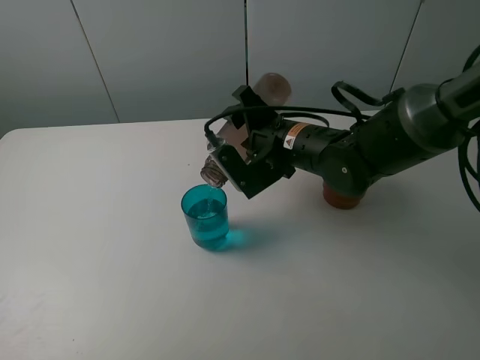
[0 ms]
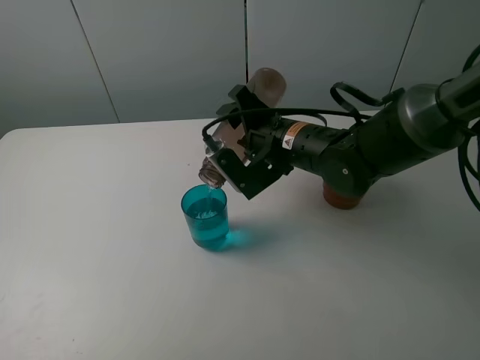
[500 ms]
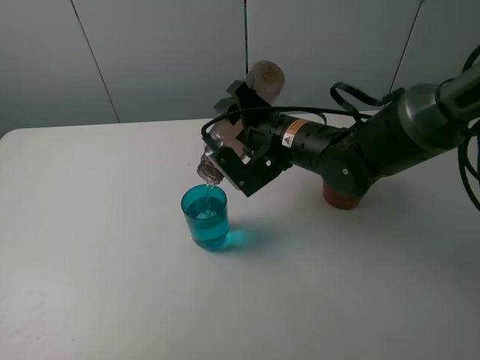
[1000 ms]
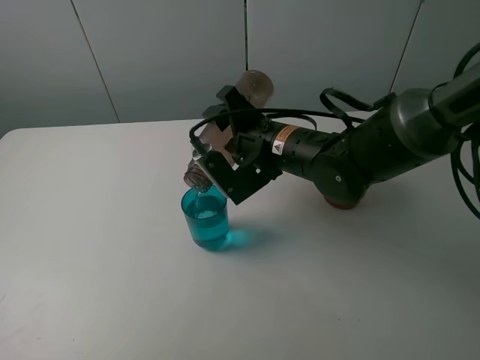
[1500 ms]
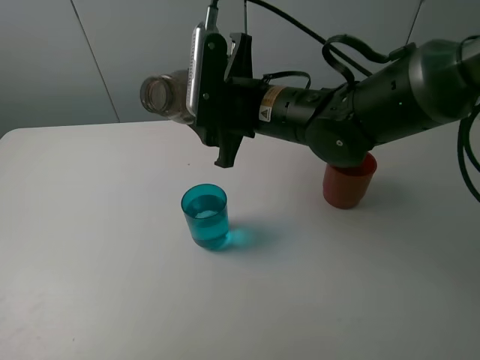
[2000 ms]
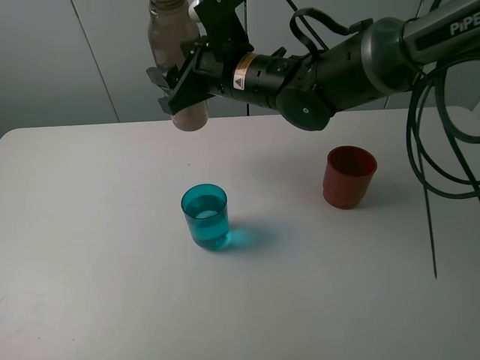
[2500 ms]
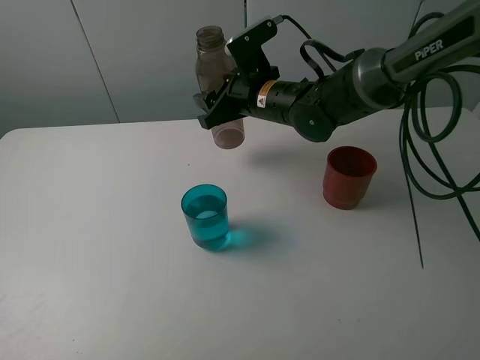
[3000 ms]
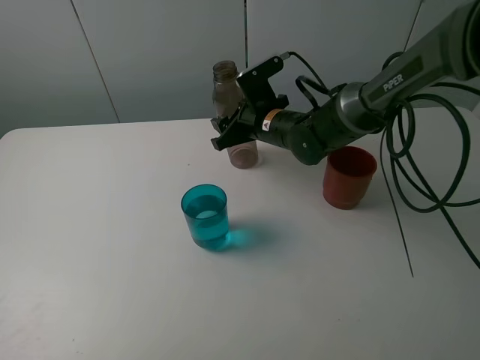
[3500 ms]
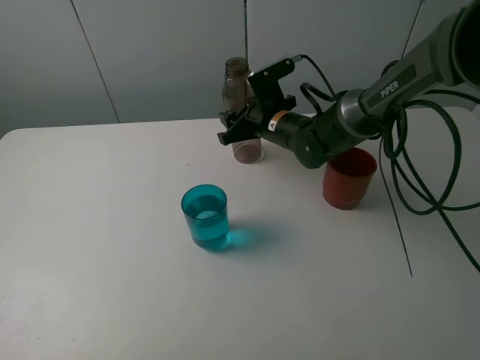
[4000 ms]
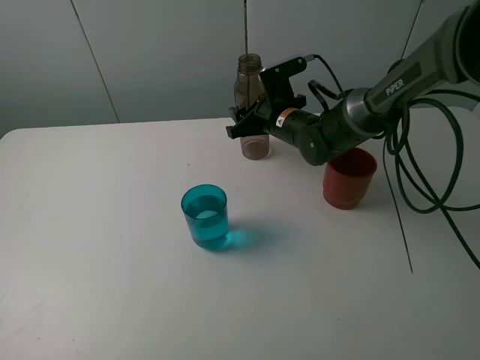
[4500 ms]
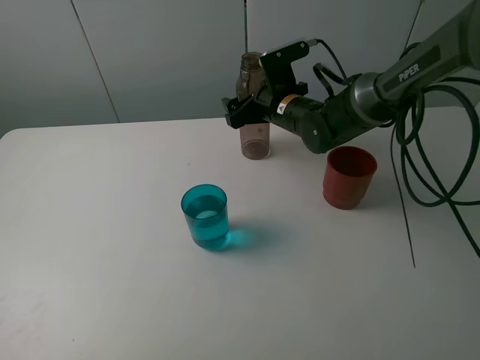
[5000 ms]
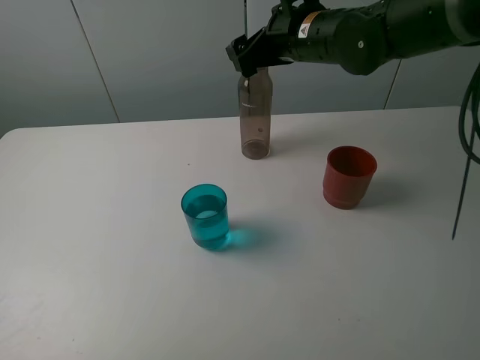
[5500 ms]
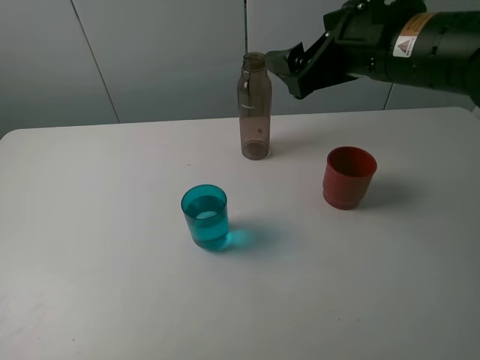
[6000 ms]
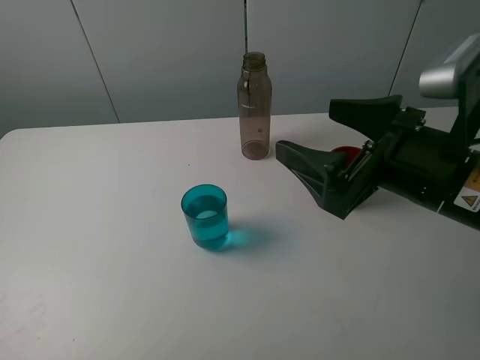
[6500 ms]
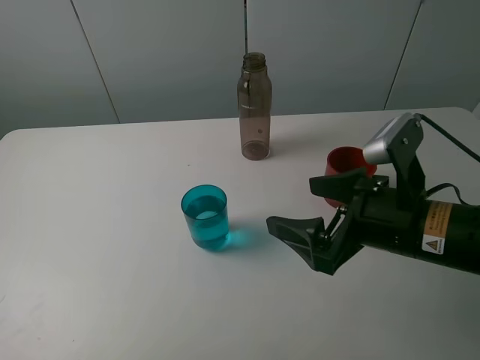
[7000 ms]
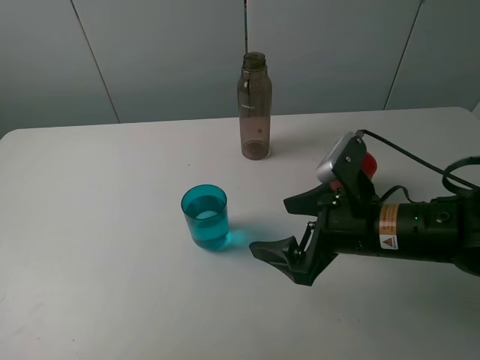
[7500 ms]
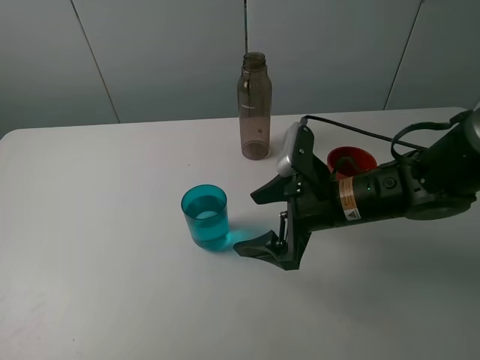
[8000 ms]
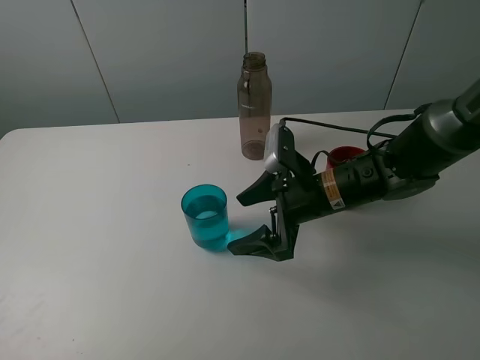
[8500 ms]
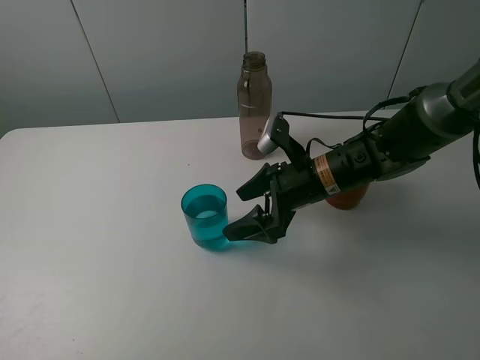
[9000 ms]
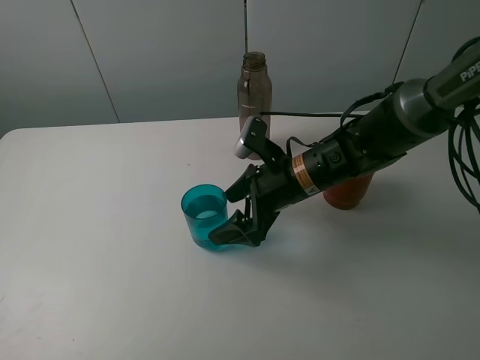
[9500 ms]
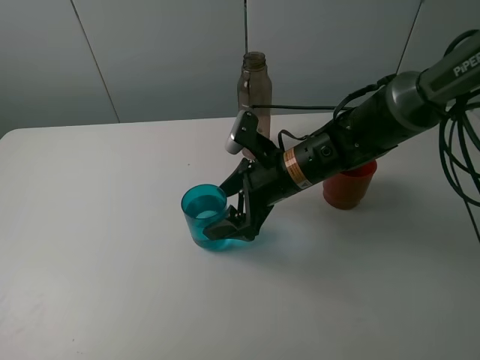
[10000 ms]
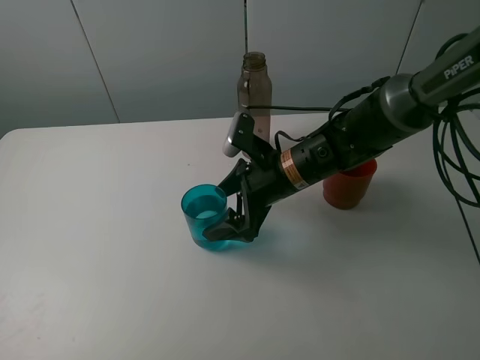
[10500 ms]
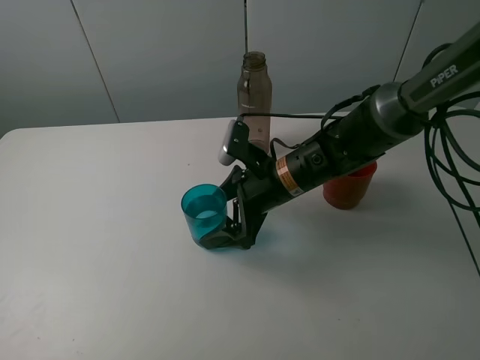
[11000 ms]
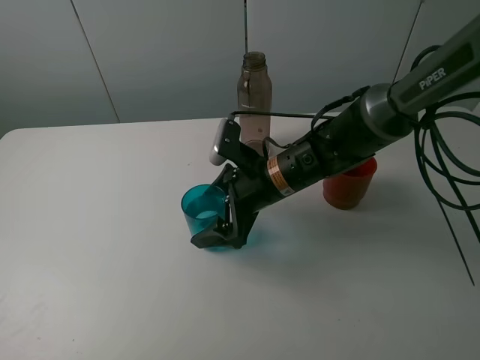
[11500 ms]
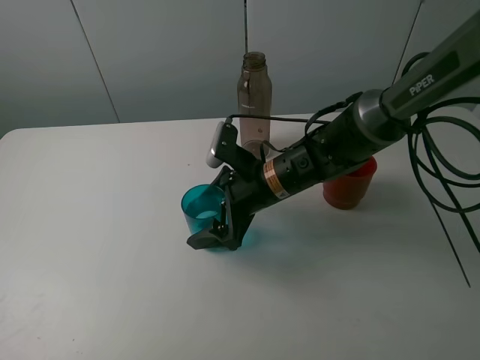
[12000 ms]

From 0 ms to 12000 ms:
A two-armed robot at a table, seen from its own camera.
Task of the whole recording: pick up the bottle and pour water into the cup, then pick up the cup containing water and pour it into another cup.
Step, from 2000 ms to 5000 ms: Place the brown bottle with the right gripper.
From 0 ms to 2000 ms: The right gripper is displaced upward by approximately 5 cm.
From 2000 ms to 4000 ms: The right gripper is displaced downward and forward by approximately 15 cm.
From 4000 ms to 6000 ms: The right gripper is displaced upward, backward and to the right by about 25 cm, and opens its fingers.
From 6000 ms to 8000 ms: The right gripper goes some 15 cm downward.
From 8000 ms to 10000 ms: The right gripper is displaced to the left and forward by roughly 5 cm.
From 10000 ms to 12000 ms: The grippers stay close to where they were, moving slightly.

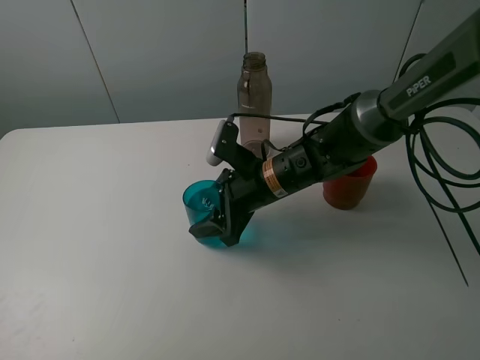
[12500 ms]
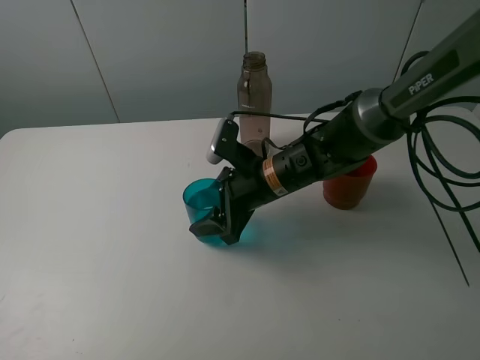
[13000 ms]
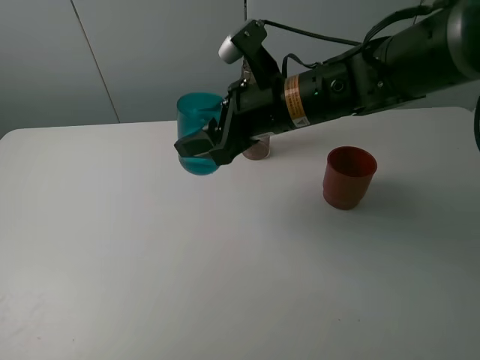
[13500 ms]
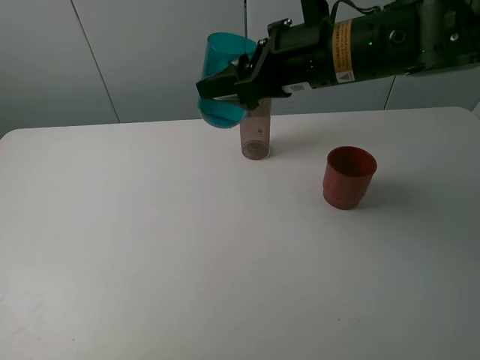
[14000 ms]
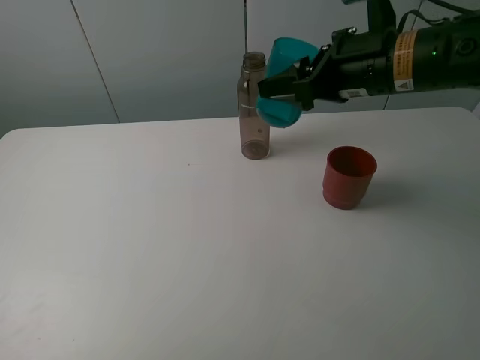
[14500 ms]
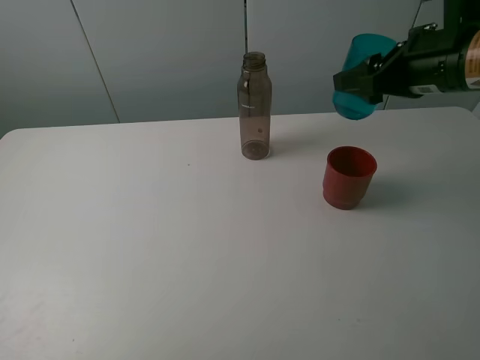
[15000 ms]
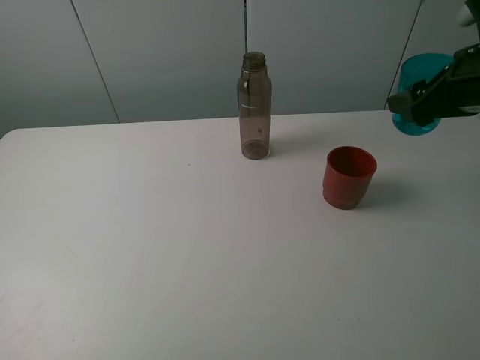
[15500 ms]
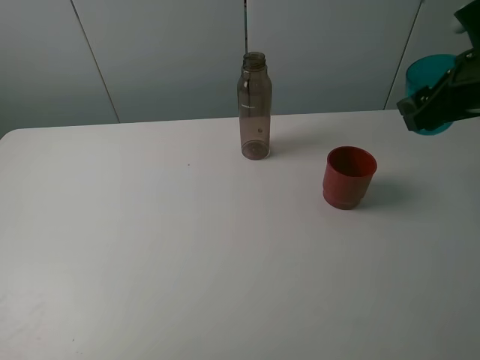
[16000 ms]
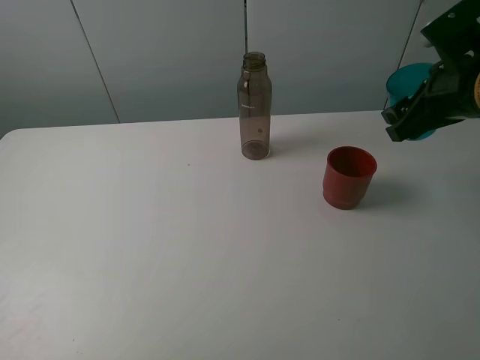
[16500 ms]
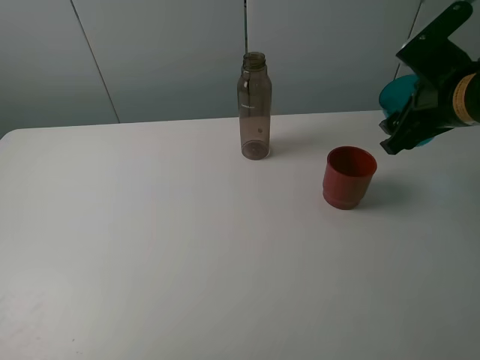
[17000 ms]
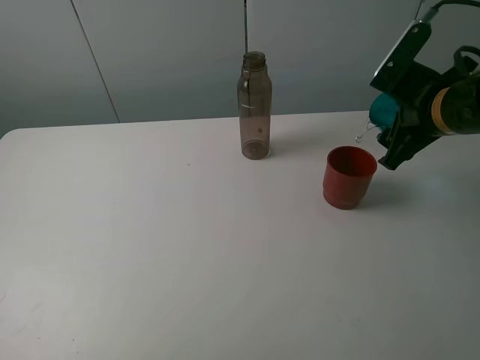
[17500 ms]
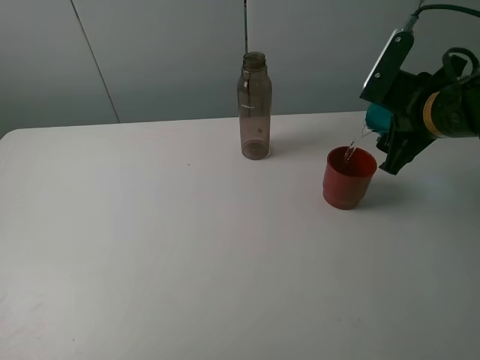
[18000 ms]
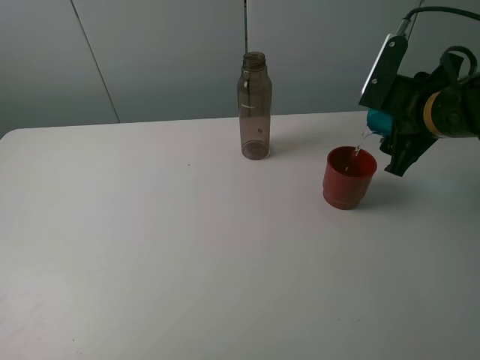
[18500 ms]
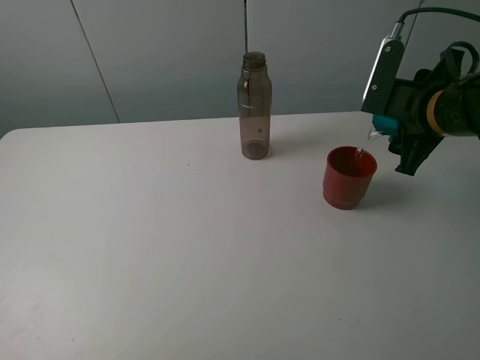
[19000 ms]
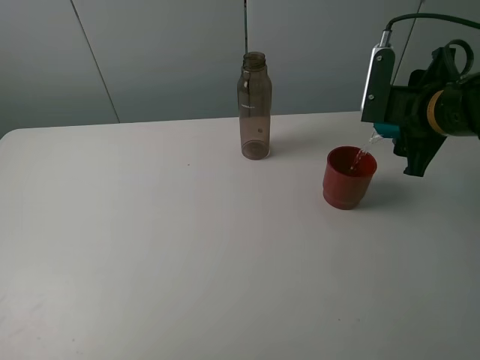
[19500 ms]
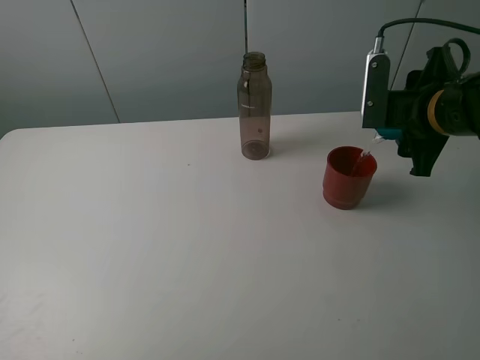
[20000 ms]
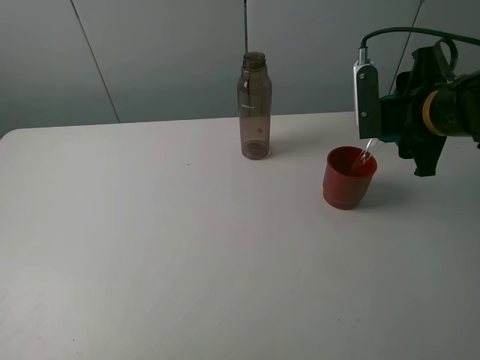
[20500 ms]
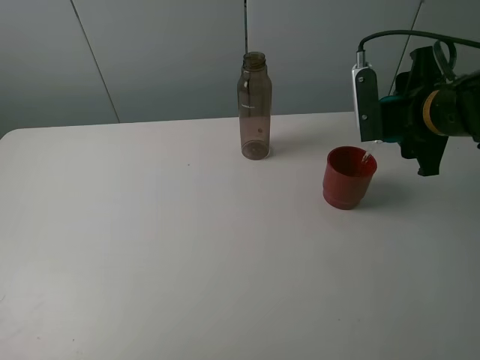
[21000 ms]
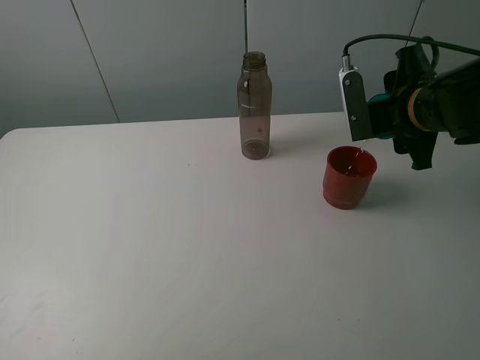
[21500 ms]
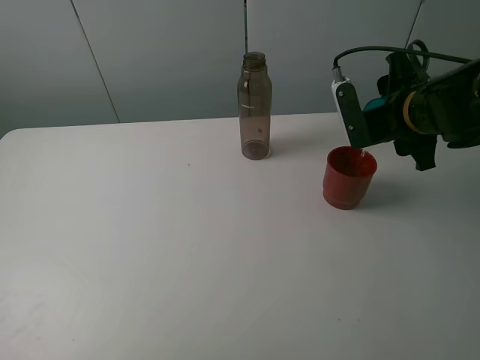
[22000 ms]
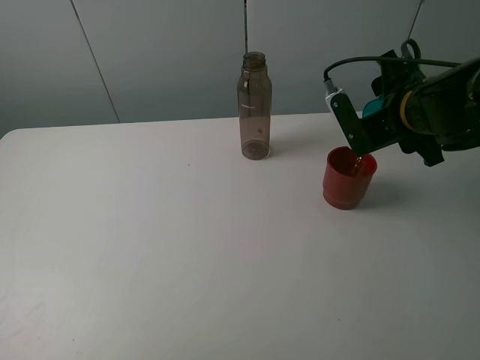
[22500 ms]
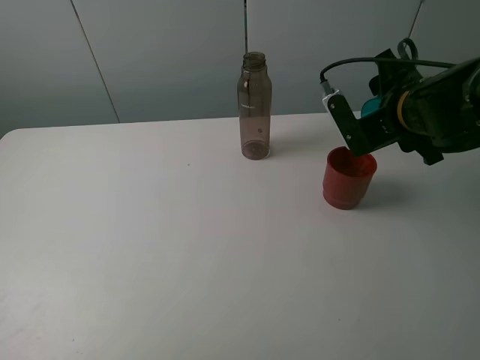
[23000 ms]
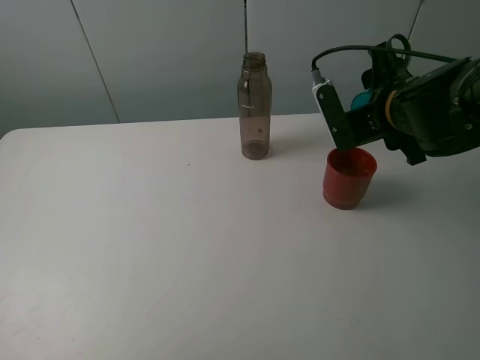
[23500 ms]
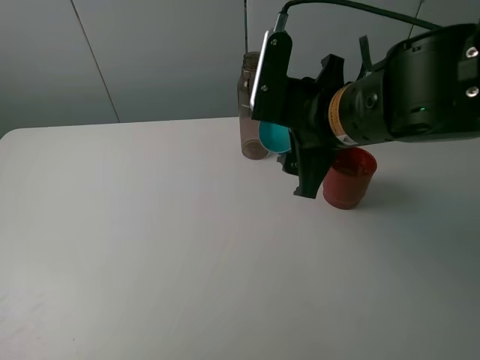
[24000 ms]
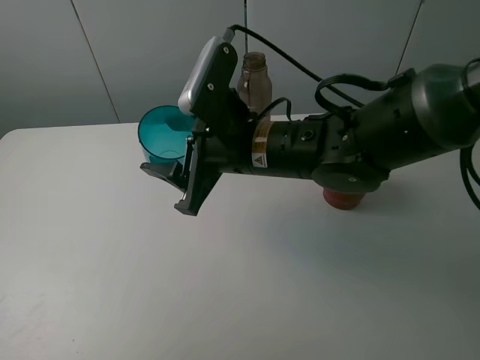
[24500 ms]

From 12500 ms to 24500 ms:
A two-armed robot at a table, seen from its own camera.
Task of the whole recording: pick up the bottle and pour water into the cup, then pick up the cup containing water and pour it into another cup.
Step, from 13000 ms to 23000 ms: Pour water from blue cup to red cup with the right gripper.
From 12500 ms to 14500 ms: The right gripper shifts approximately 20 cm upward and to the right.
From 14500 ms to 16500 ms: The right gripper heads to the right, covering roughly 10 cm.
From 22500 ms to 24500 ms: The right gripper is displaced to the left by roughly 20 cm.

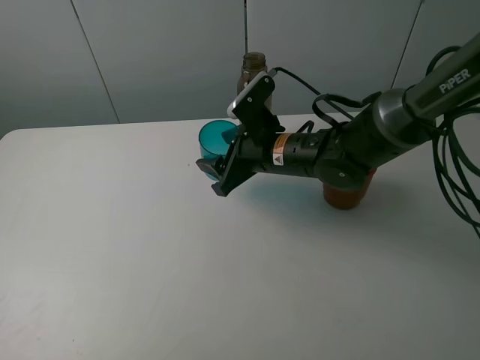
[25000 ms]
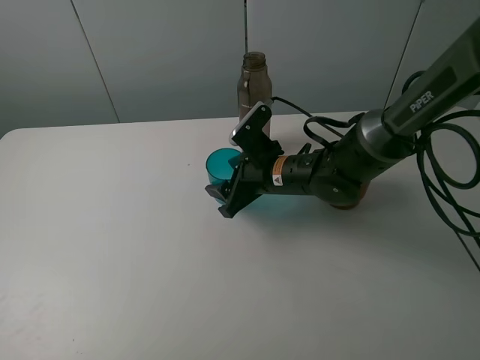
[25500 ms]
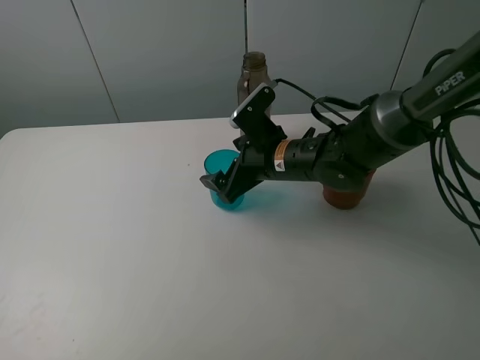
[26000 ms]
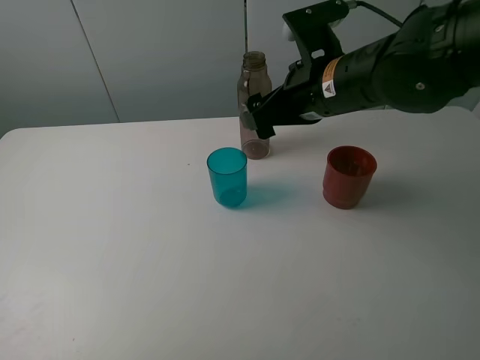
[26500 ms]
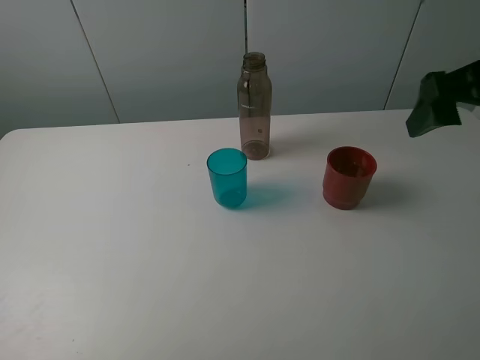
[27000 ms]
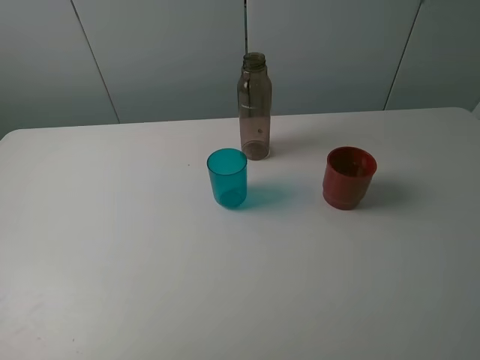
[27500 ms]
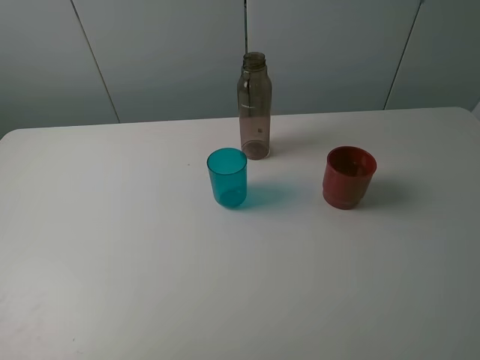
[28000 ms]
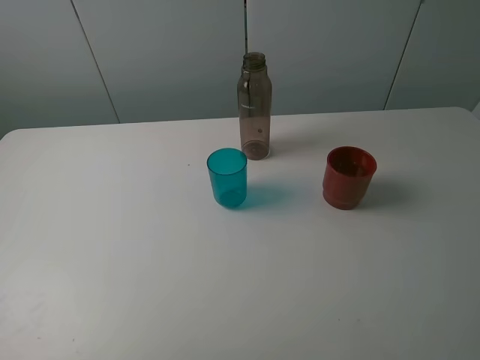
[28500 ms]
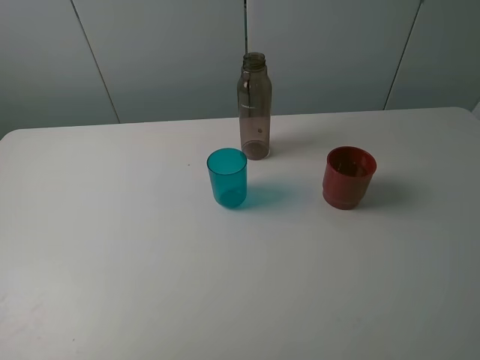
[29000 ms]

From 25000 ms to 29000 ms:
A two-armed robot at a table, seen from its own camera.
Task of the whole recording: pick up the bottle and pour water into the cup, then pick up the cup containing water and pour it into another cup.
From 25000 ms to 27000 ms: The right gripper is displaced upward, to the right and backward by approximately 30 cm, and opens up.
From 27000 ms to 29000 ms: The right gripper shifts about 20 cm backward.
